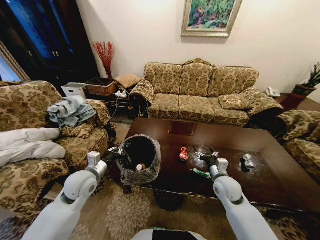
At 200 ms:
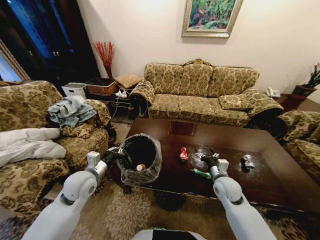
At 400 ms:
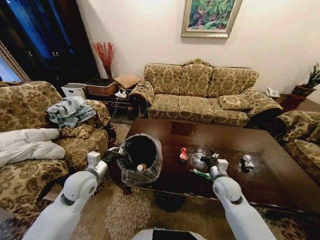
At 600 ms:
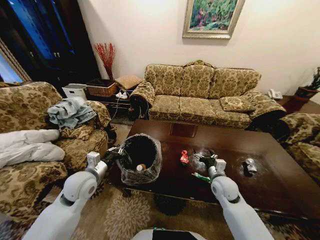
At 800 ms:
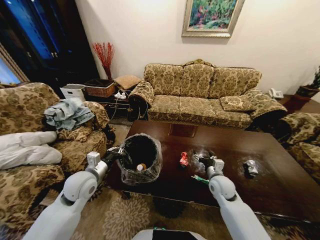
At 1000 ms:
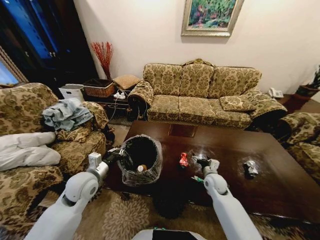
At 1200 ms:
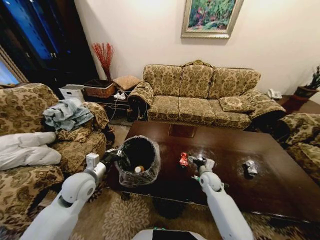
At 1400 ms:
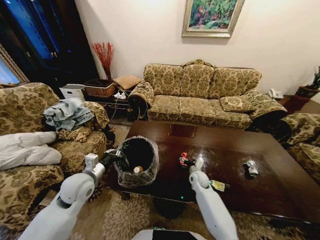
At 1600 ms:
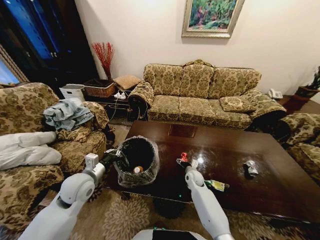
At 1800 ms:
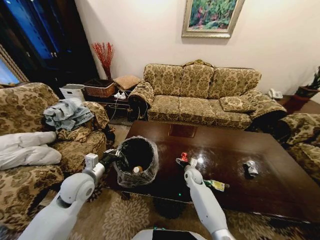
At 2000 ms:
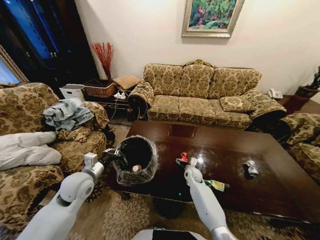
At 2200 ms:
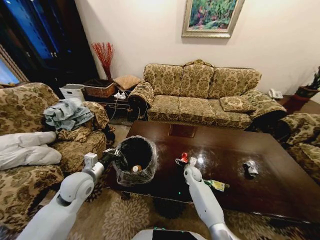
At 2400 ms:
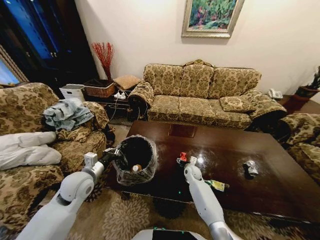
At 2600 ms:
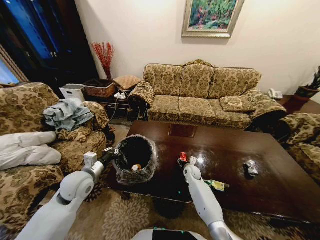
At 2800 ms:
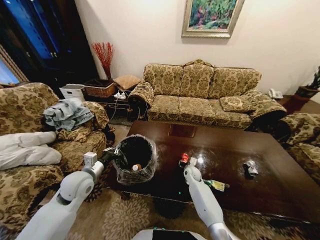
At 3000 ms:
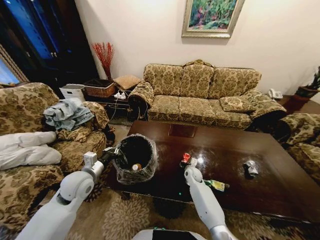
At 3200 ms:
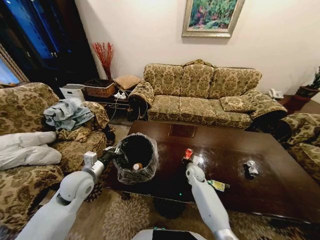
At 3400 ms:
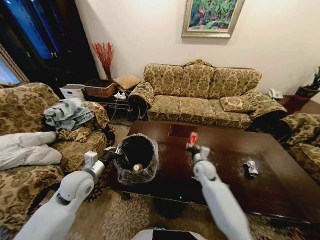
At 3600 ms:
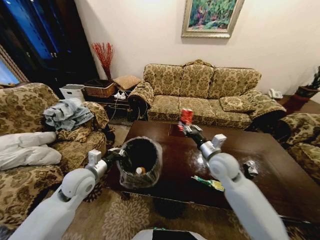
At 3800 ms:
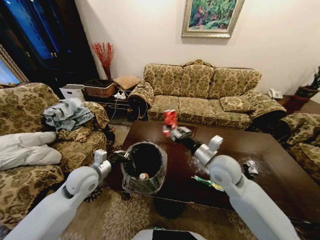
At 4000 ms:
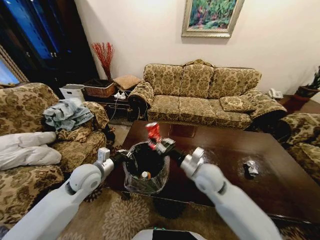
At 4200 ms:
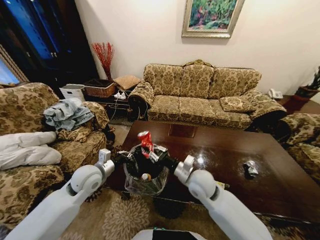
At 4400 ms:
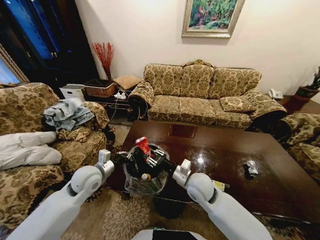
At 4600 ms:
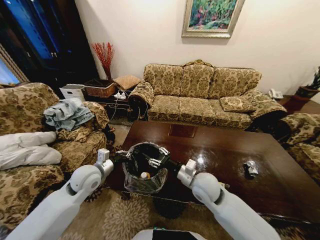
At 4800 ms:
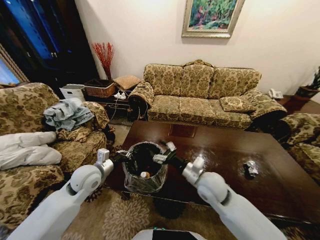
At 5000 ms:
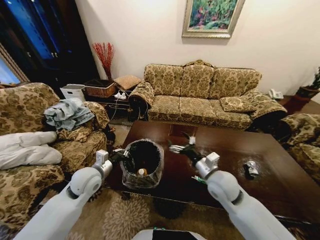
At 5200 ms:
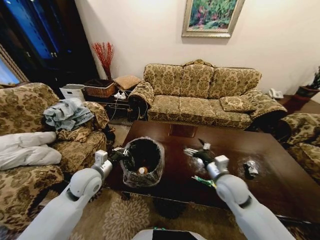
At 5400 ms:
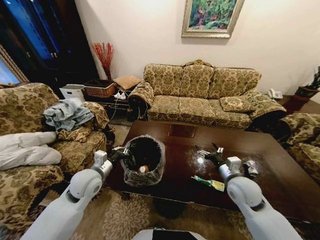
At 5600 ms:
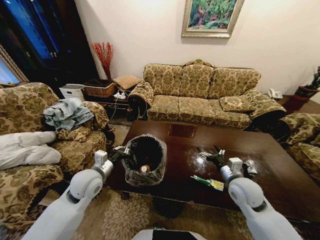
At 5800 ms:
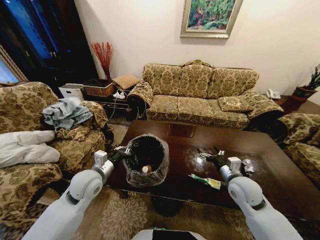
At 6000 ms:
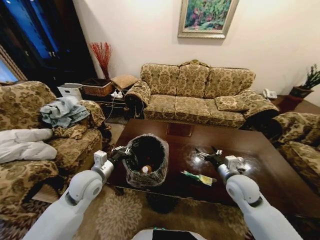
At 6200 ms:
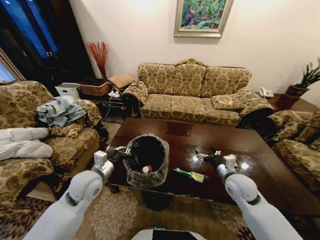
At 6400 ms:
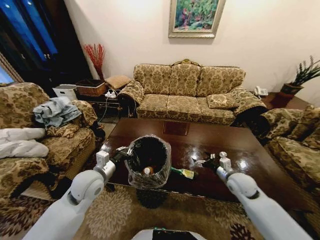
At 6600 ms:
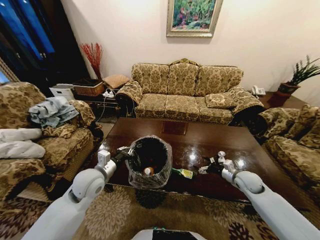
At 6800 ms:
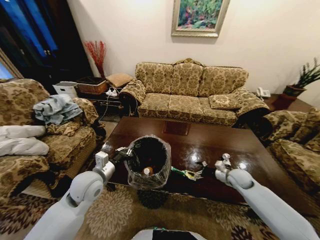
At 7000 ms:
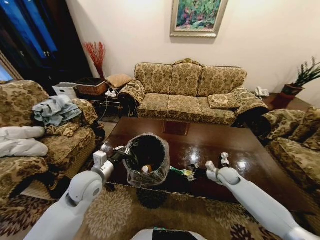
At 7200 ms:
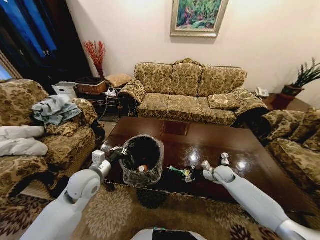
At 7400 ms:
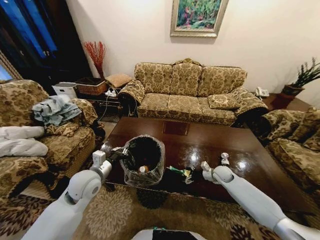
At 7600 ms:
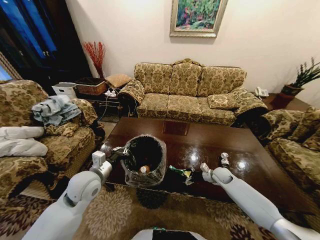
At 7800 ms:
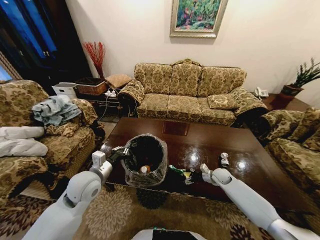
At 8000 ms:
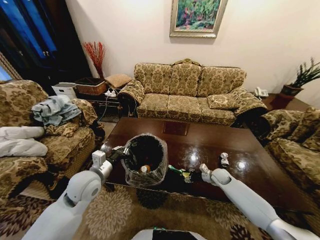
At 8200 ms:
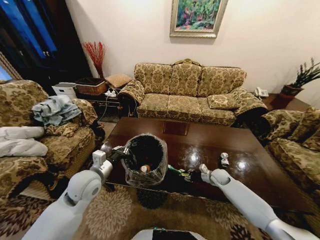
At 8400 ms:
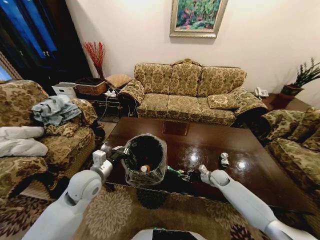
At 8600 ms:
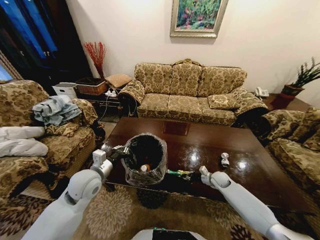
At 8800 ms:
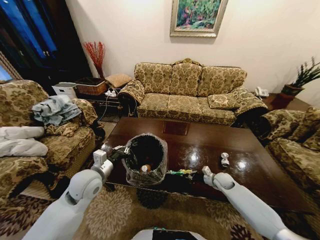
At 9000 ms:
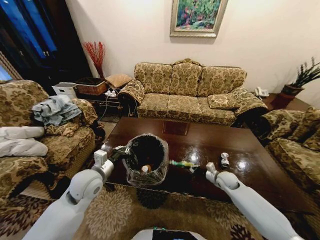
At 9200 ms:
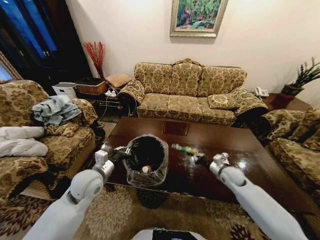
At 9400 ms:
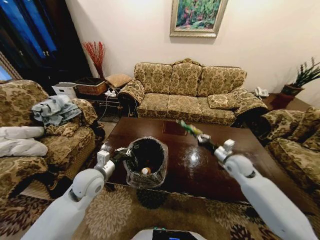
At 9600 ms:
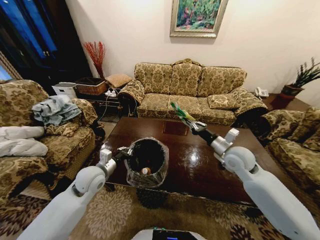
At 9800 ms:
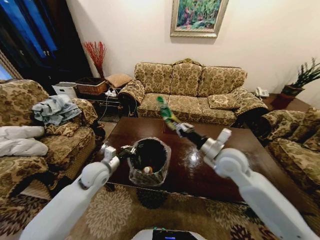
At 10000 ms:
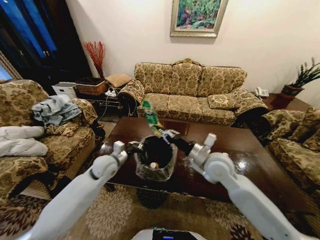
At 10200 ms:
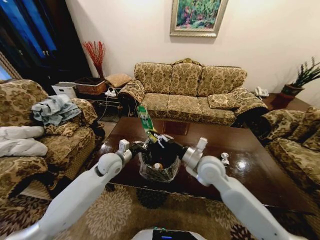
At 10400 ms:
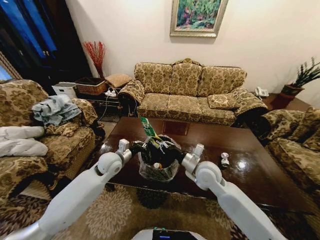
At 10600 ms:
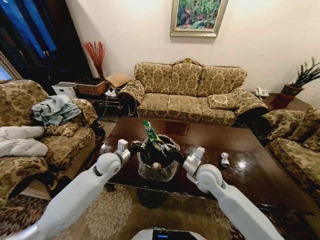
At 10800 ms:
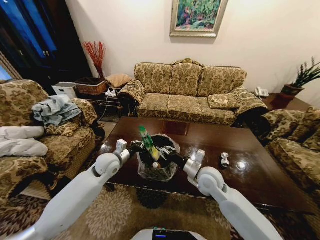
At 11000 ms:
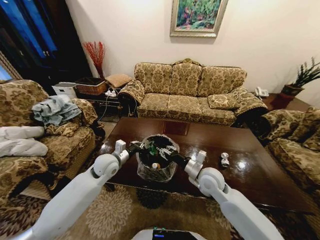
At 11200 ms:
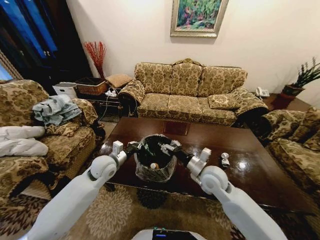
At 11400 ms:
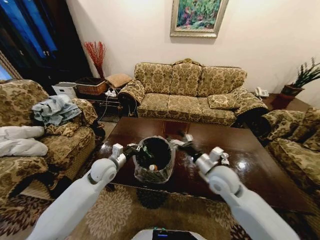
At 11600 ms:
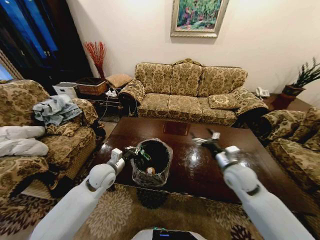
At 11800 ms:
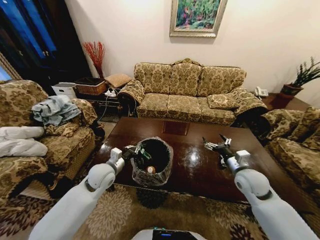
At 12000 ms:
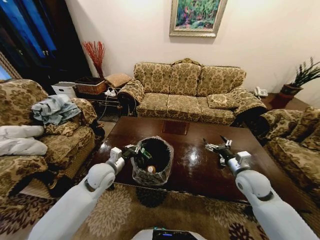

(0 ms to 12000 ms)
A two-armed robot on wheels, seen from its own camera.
Task of the whole recording: Move to the front of the table and place the trash on the table into the trash bin.
0 ms - 1600 ms: The right gripper goes roughly 20 cm downward, forward and to the left.
1600 ms - 3000 ms: The right gripper closes.
3000 ms - 4400 ms: The right gripper goes about 25 cm upward and backward.
4400 ms - 6000 ms: The right gripper heads to the right, covering roughly 15 cm, and opens.
6000 ms - 7600 ms: The right gripper heads downward and forward, covering approximately 20 cm.
7600 ms - 9000 ms: The right gripper closes its fingers.
9000 ms - 10400 ms: The left gripper is displaced forward by roughly 10 cm. The right gripper is displaced upward and to the left by approximately 25 cm.
10400 ms - 12000 ms: The left gripper travels backward by some 5 cm. The right gripper heads to the right, covering about 15 cm, and opens.

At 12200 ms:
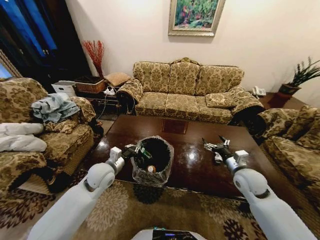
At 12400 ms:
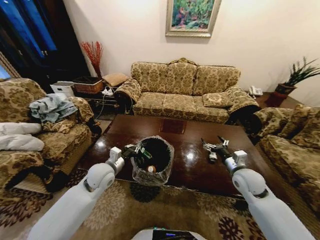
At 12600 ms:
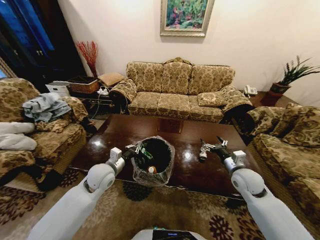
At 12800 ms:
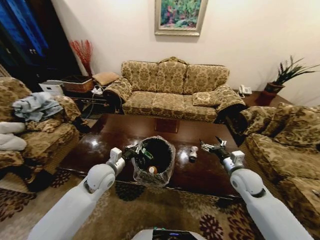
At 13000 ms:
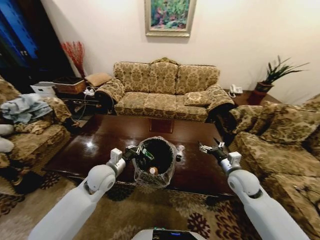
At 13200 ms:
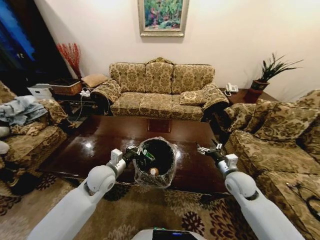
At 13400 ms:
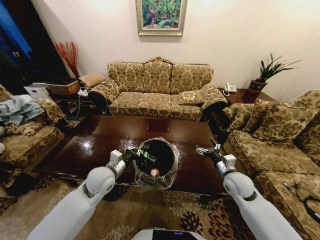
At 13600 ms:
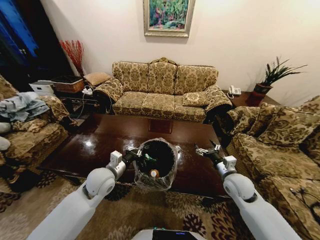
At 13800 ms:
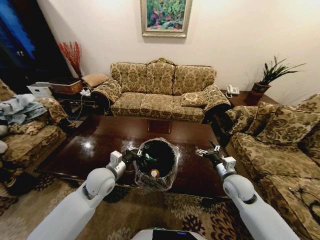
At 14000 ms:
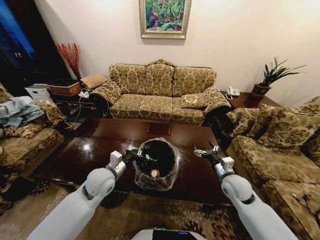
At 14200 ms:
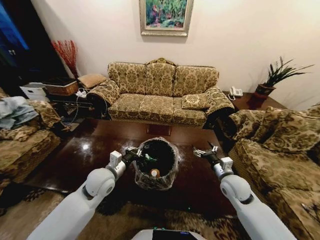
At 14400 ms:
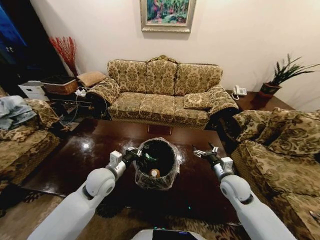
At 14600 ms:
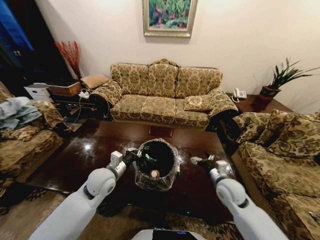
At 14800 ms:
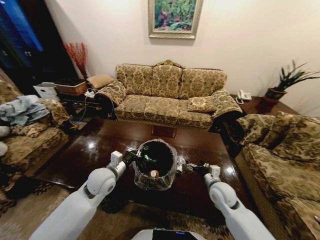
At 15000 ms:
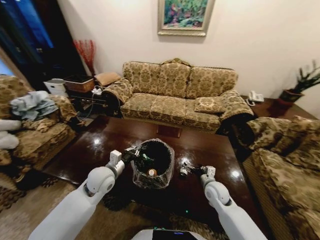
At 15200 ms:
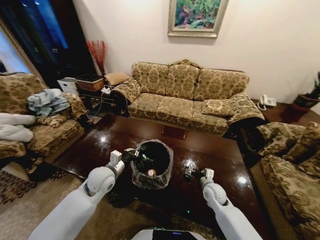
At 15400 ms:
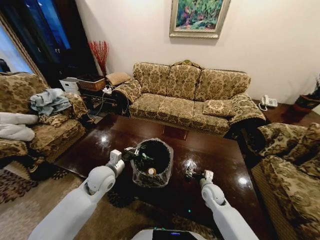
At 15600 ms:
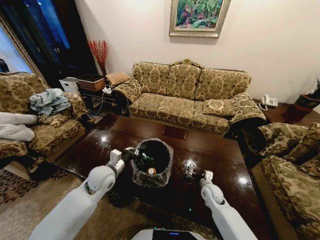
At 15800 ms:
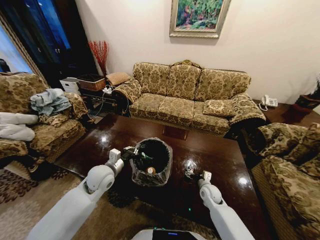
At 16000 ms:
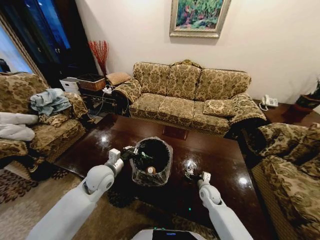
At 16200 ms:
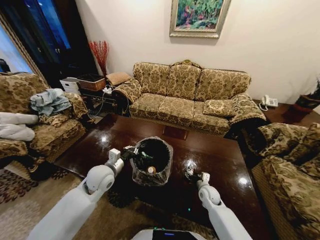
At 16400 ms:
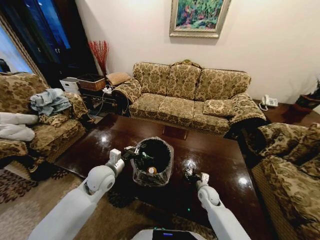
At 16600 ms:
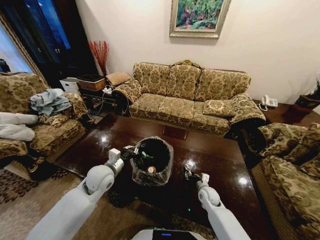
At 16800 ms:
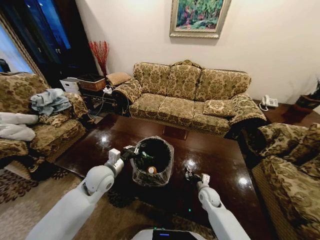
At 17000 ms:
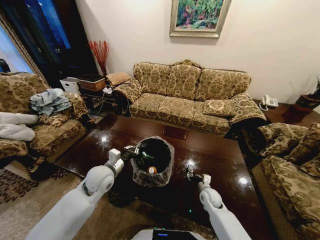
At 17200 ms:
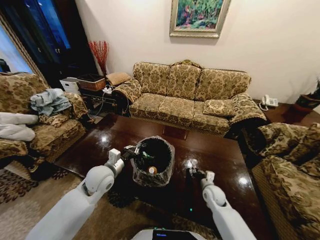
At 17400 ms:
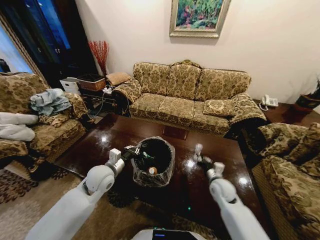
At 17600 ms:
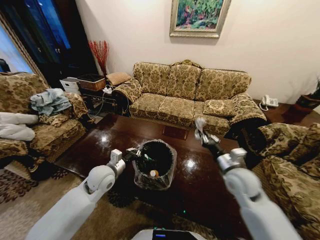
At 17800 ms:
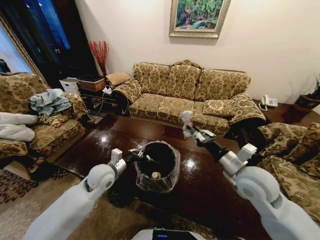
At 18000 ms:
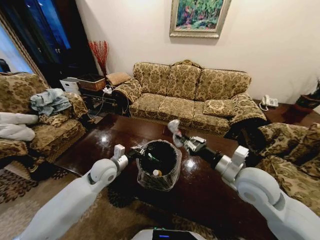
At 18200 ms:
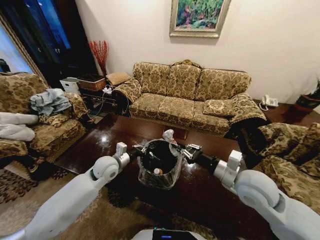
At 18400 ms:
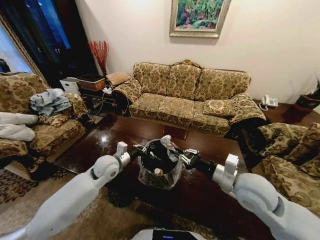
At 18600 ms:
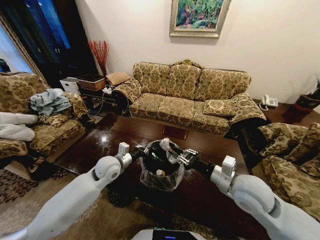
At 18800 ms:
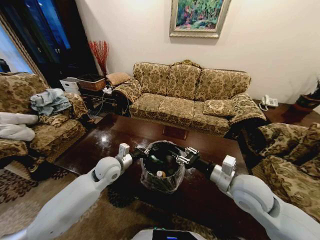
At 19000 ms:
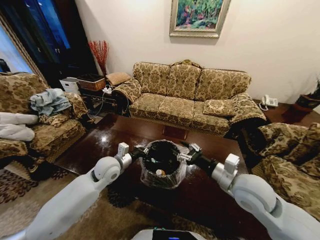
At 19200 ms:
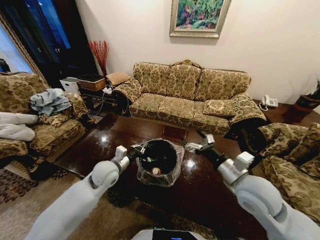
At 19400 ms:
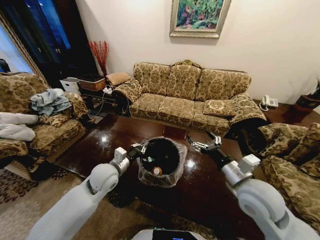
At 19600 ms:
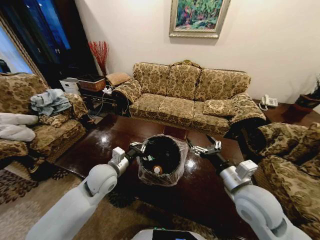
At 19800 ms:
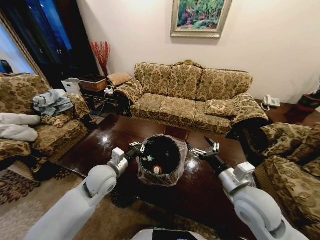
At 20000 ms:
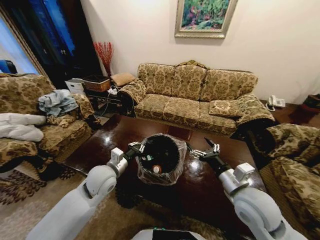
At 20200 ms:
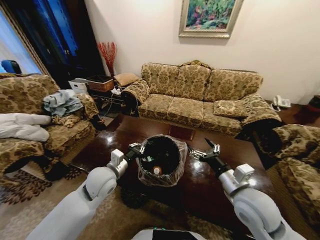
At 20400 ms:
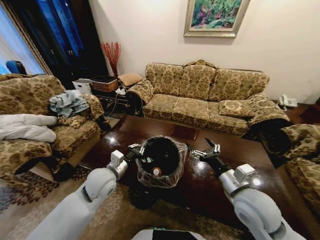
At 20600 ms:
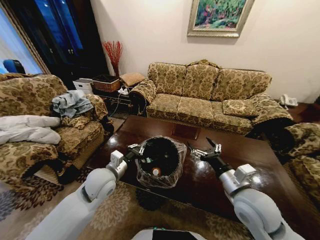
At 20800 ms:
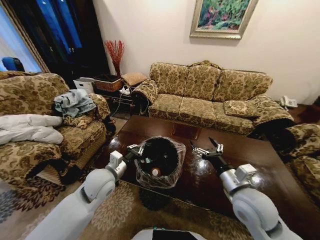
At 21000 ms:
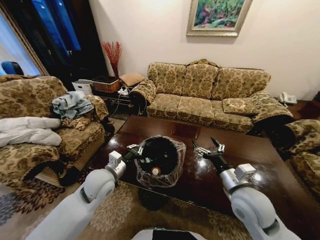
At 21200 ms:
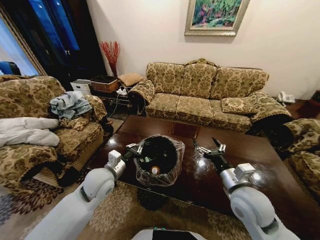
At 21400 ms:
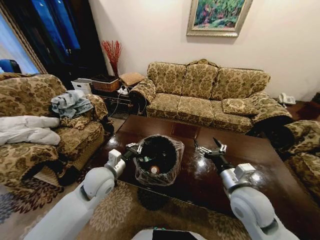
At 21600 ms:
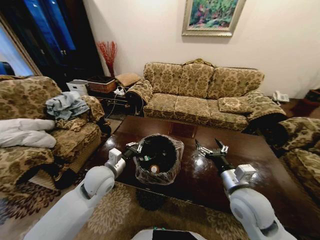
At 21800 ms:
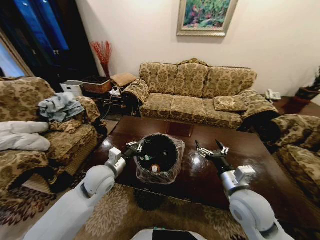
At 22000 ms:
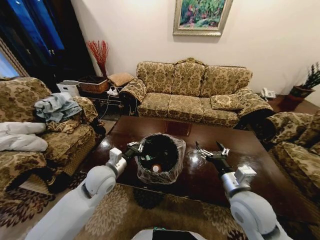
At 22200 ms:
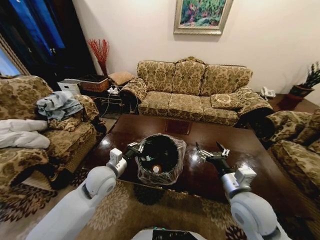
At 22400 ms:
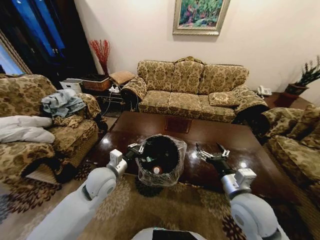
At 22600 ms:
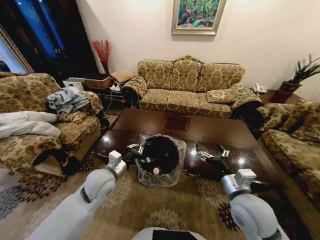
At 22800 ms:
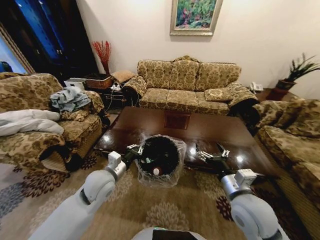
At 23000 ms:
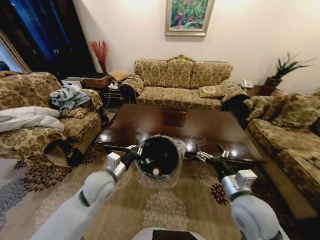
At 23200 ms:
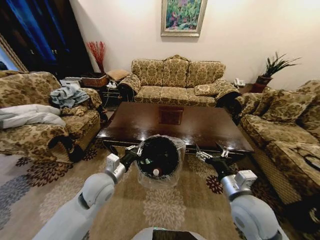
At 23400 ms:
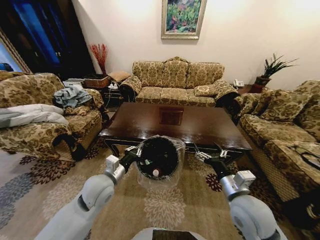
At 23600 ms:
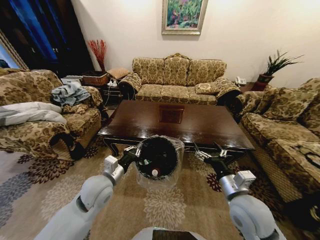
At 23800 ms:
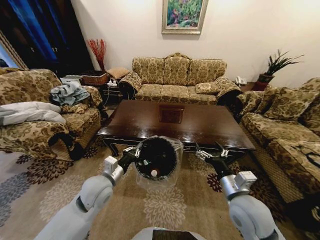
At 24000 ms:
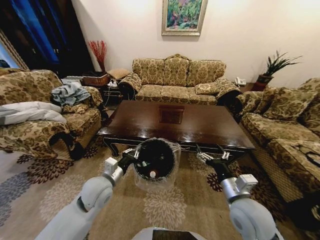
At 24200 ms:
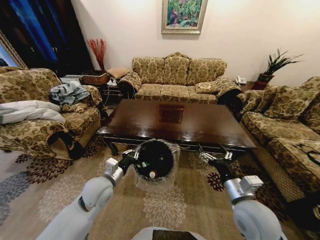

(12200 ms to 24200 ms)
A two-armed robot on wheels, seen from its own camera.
Task of the whole recording: Move to the front of the table and place the trash on the table into the trash bin.
12200 ms - 13800 ms: The right gripper ends up about 5 cm from where it was.
13800 ms - 15200 ms: The right gripper heads downward and to the left, covering some 10 cm.
15200 ms - 16600 ms: The right gripper moves downward, roughly 5 cm, and closes.
16600 ms - 18200 ms: The right gripper moves upward, about 30 cm.
18200 ms - 19800 ms: The left gripper moves backward, about 5 cm. The right gripper opens up.
